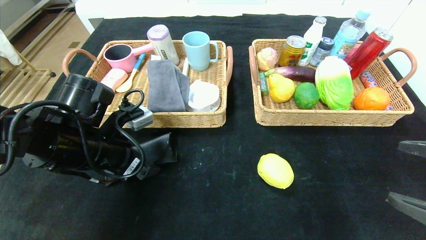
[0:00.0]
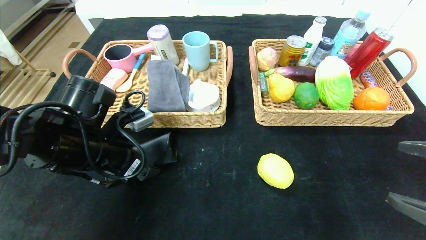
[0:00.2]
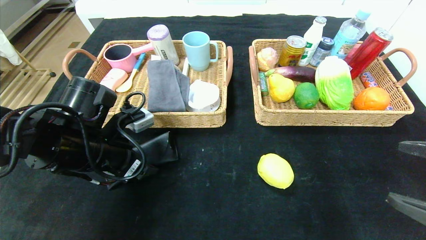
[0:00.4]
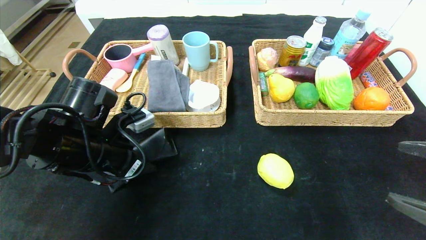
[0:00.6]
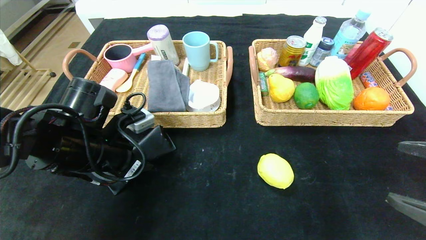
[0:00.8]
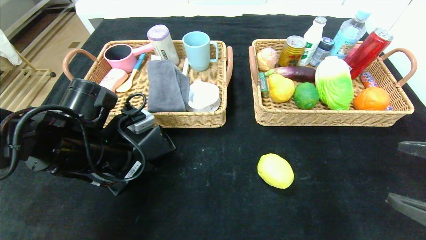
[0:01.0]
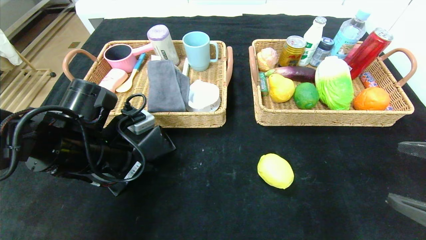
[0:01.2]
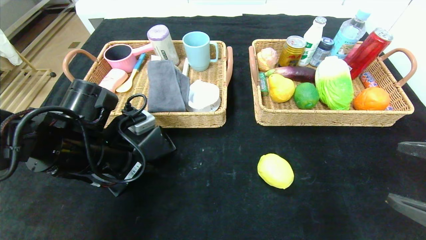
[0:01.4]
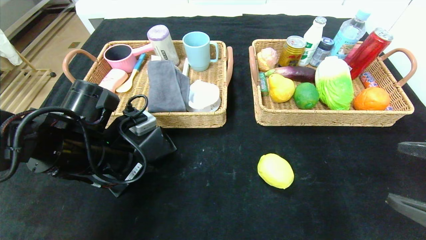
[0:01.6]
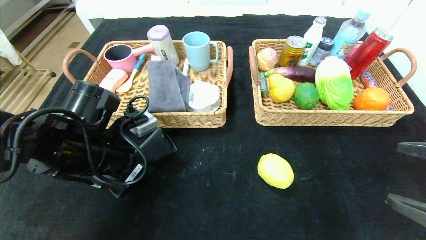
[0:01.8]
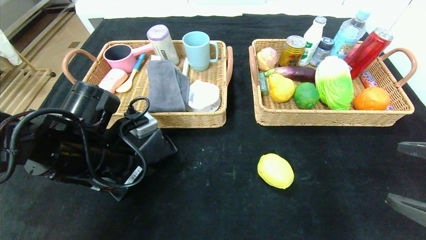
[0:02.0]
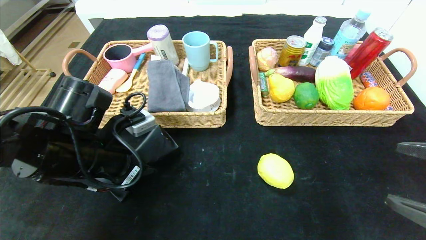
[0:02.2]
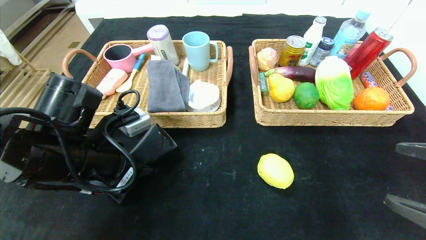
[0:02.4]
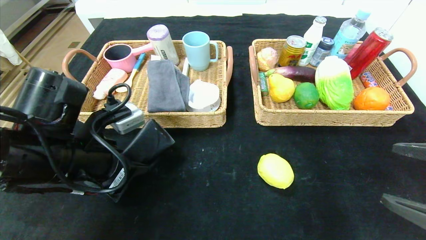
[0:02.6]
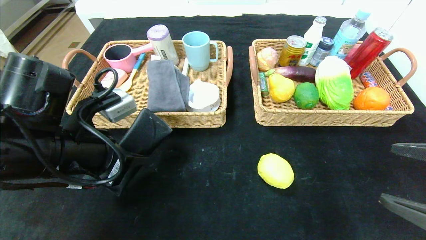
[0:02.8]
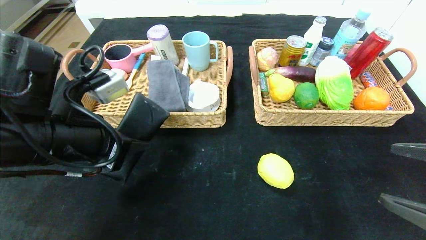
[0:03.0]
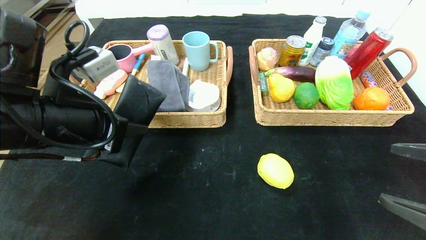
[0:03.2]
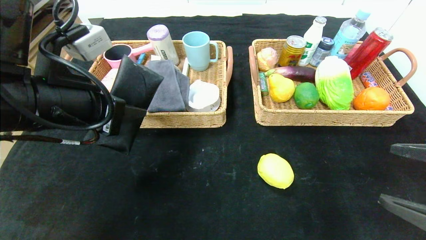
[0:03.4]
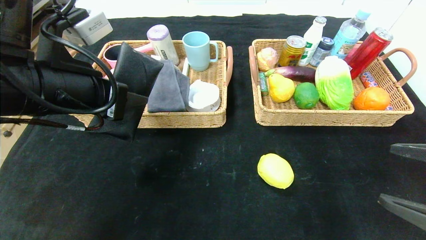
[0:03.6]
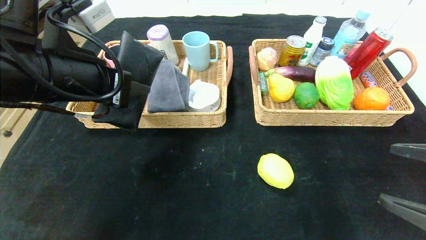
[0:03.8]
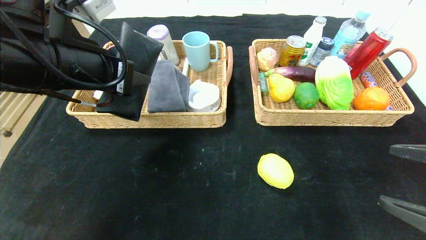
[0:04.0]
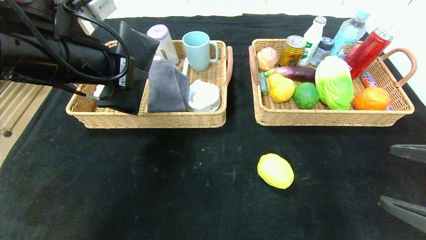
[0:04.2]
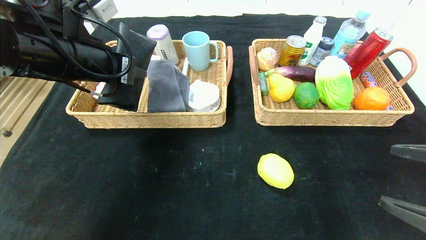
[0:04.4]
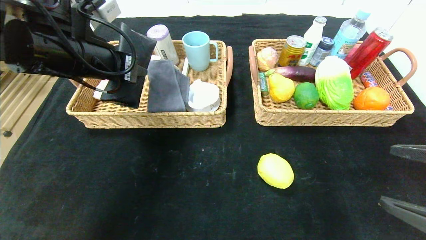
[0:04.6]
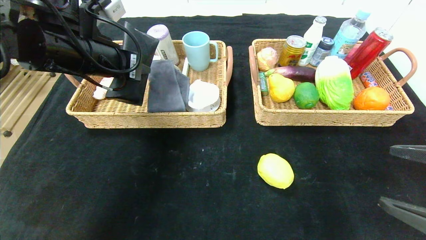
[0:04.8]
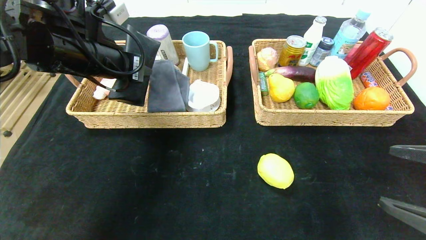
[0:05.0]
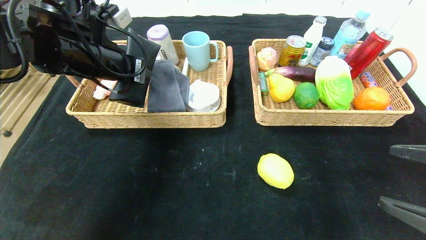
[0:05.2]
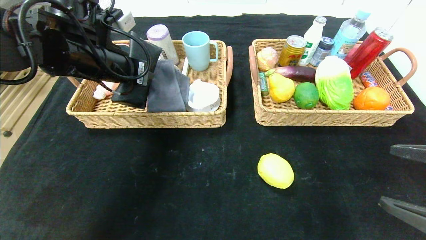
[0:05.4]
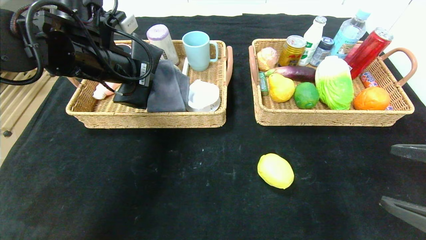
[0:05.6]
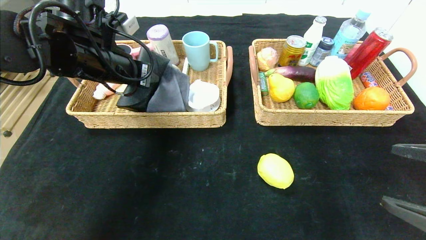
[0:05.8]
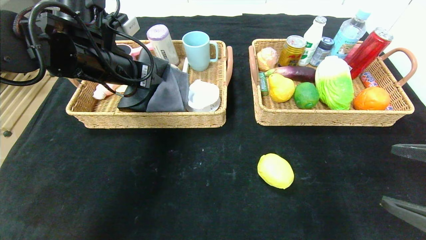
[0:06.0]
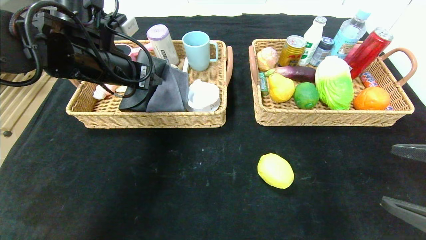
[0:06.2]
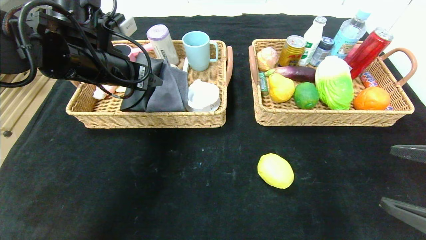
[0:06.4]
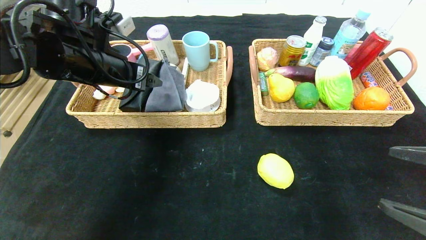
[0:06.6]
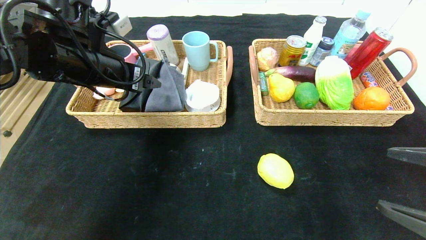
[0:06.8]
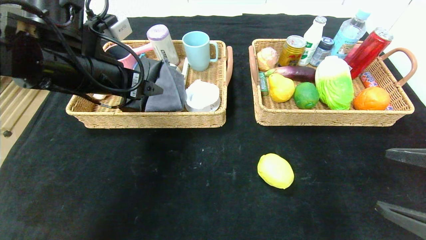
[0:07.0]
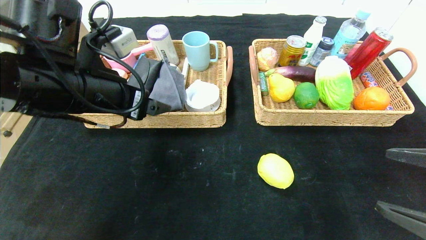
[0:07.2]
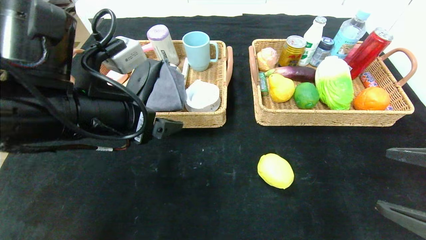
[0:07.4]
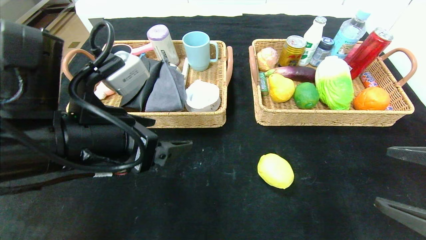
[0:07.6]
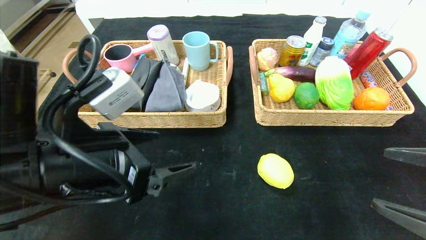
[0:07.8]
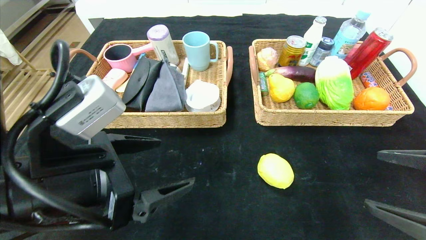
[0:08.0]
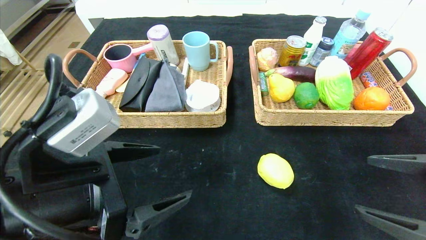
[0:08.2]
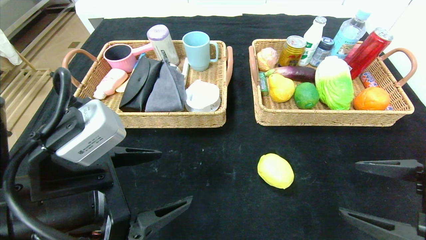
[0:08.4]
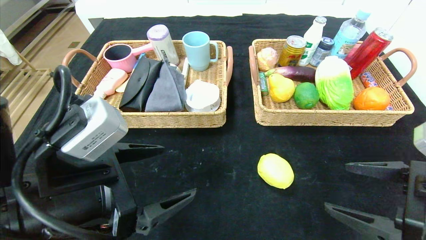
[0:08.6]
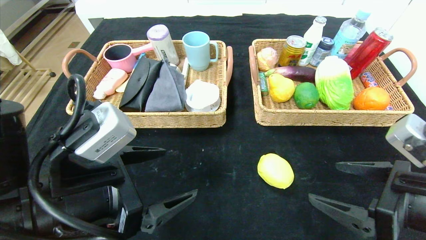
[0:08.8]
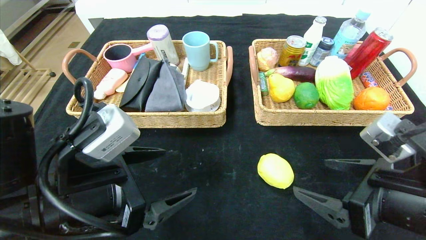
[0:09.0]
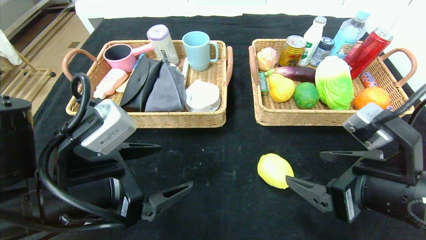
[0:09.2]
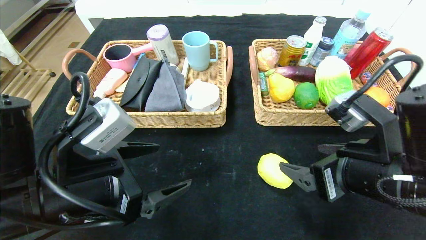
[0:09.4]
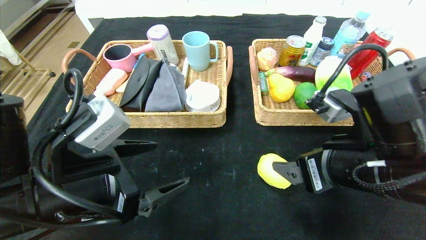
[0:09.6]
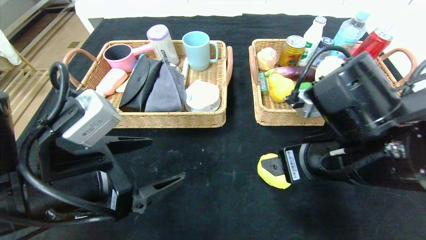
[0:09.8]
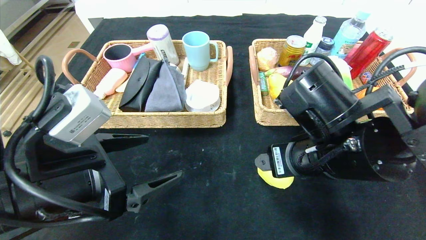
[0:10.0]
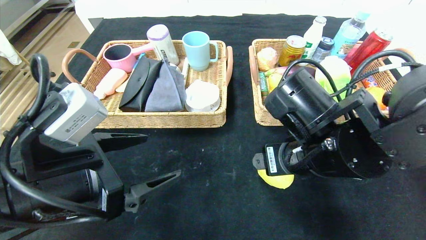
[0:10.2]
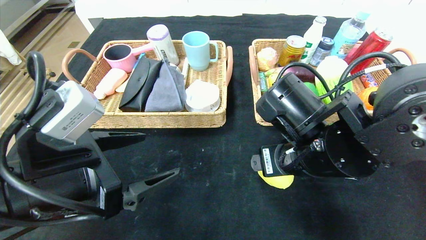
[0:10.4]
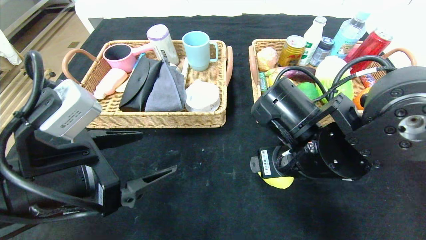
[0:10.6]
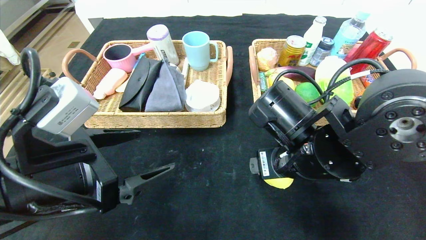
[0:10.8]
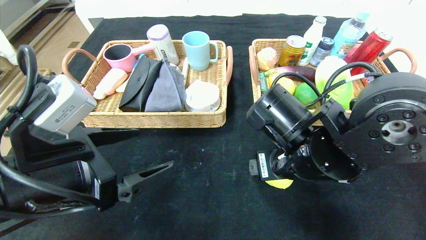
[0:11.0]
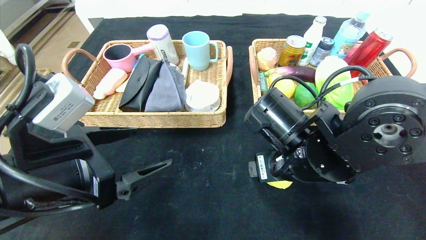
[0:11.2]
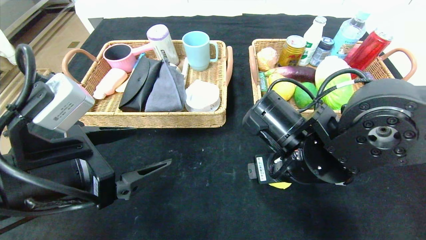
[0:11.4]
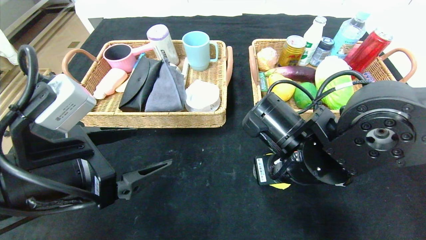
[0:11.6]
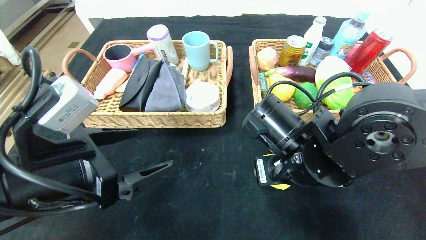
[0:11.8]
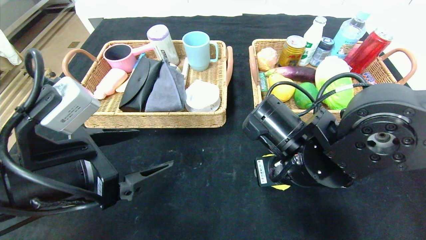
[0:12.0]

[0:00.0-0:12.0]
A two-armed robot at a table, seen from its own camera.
Step, 0:00.0 to 0:07.8: Pick up the glasses case and put it in the left basket.
0:00.0 to 0:01.6: The left gripper closes up.
0:01.6 to 0:03.0: The left gripper heads upward, covering about 5 cm.
0:03.0 to 0:04.4: The left gripper shifts roughly 10 cm forward and upward.
0:04.4 to 0:06.0: The left gripper heads forward, covering approximately 5 cm, and opens up.
0:06.0 to 0:07.6: The left gripper goes about 15 cm backward.
0:07.6 to 0:09.0: The left gripper changes place by roughly 5 cm, while the right gripper heads to the left, covering roughly 10 cm.
0:09.0 to 0:10.4: The right gripper is displaced to the left and forward by approximately 15 cm.

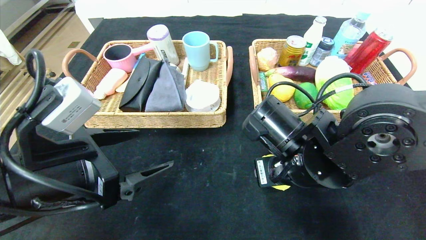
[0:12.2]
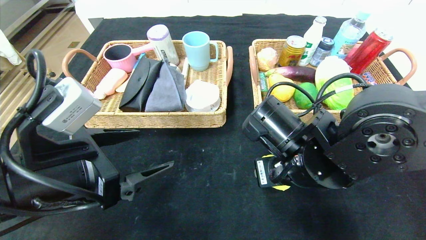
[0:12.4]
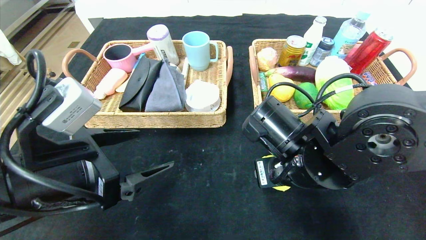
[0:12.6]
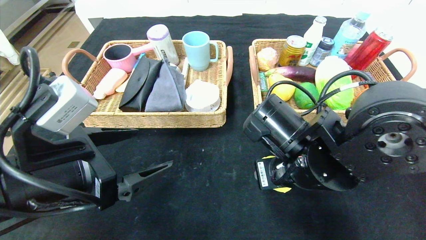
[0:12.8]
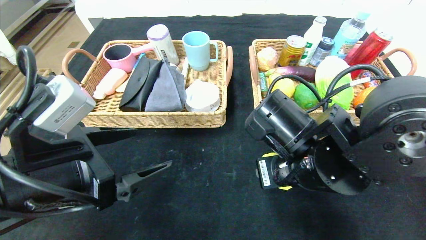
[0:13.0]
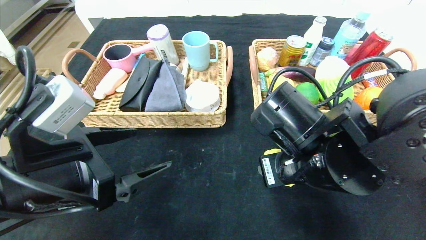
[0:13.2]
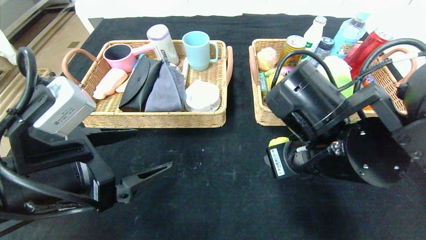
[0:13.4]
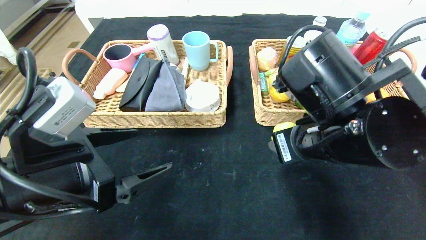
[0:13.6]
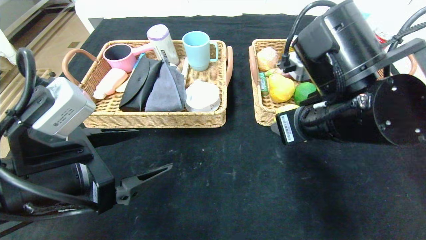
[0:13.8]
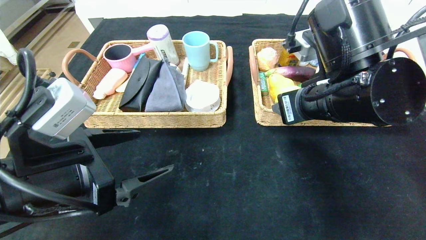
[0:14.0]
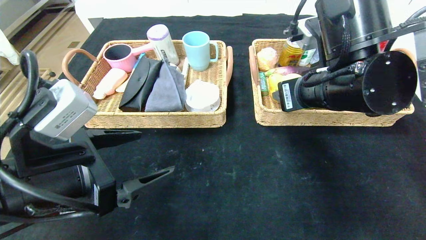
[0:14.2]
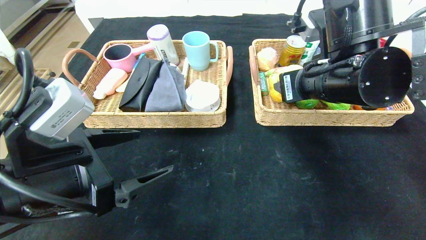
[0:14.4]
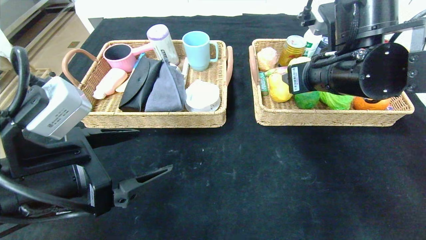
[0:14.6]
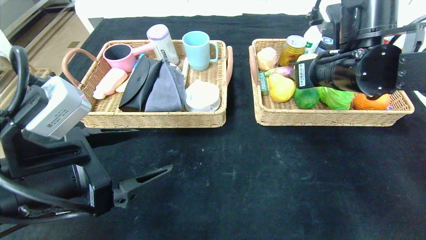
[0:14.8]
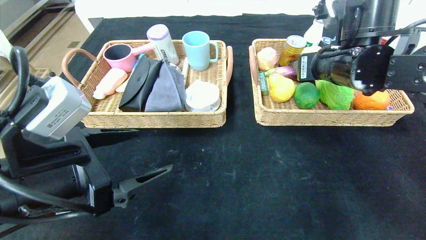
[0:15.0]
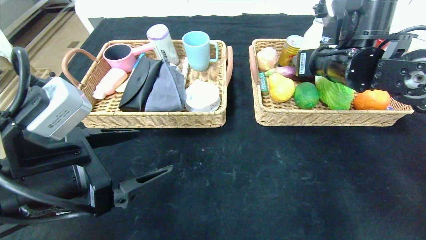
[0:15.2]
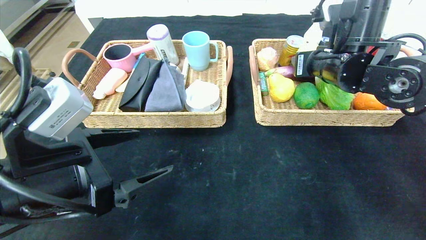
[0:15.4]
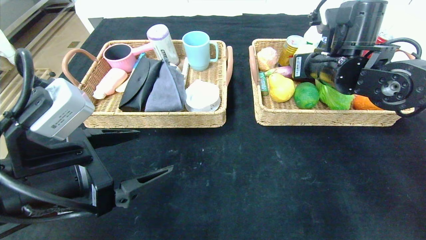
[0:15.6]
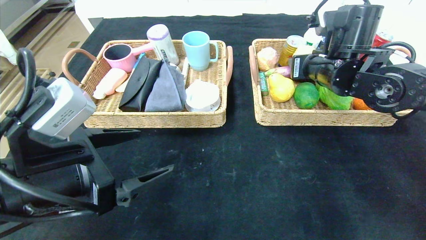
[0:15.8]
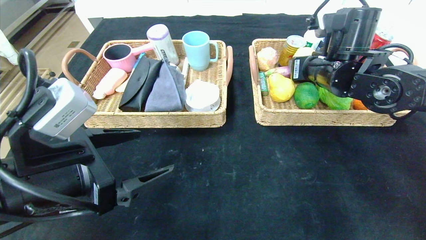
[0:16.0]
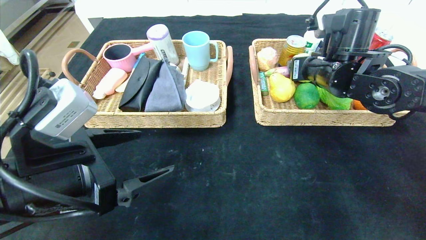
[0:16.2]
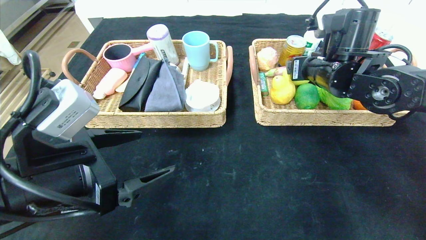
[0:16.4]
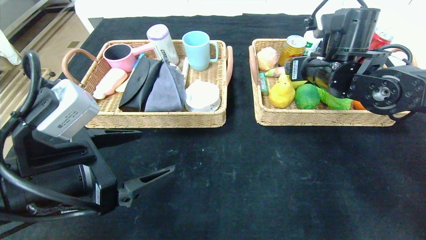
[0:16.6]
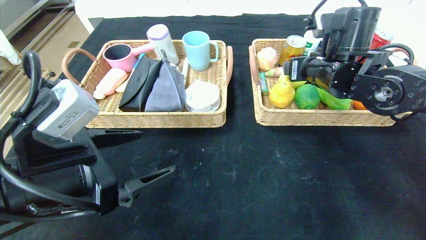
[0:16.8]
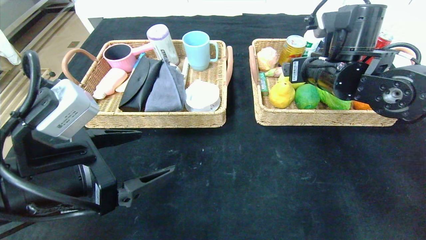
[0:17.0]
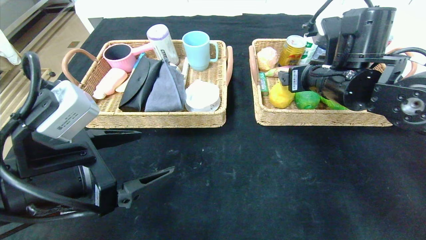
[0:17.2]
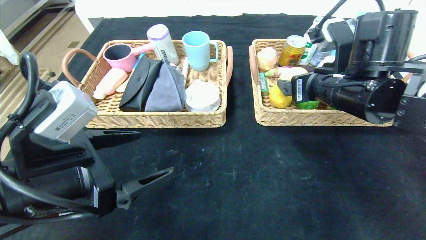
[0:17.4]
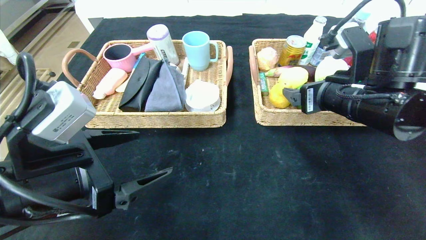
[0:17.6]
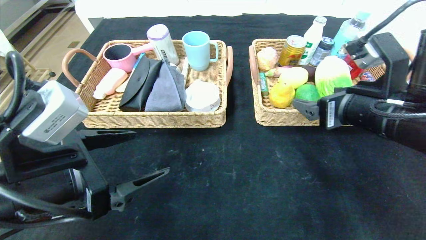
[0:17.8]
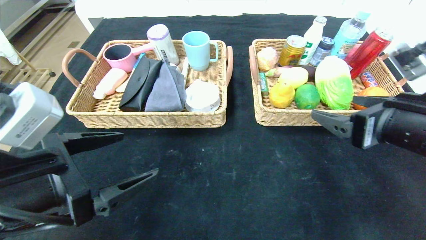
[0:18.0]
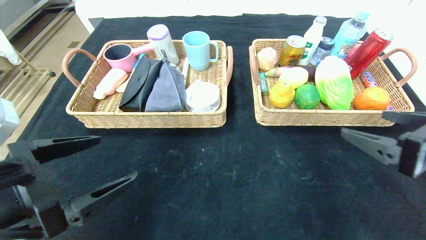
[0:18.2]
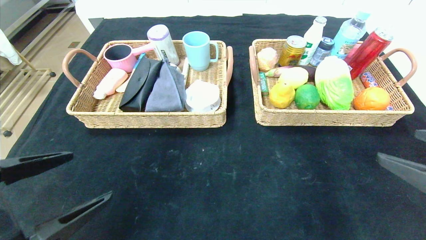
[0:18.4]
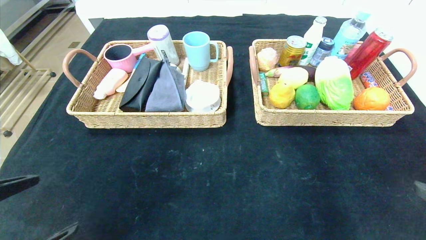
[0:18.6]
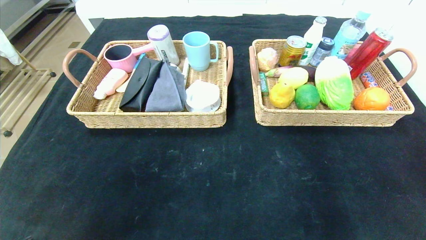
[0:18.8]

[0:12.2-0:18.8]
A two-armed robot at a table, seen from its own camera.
Step, 0:12.2 to 0:18.2: Pick up the lemon and put it in the right basket.
0:12.2 to 0:13.8: The right gripper shifts roughly 10 cm upward.
0:13.8 to 0:15.4: The right gripper goes about 15 cm forward and to the right.
0:15.4 to 0:17.2: The grippers make only small movements.
0:17.2 to 0:18.8: The left gripper travels backward and to the left by approximately 15 cm; the right gripper is displaced backward and to the right by approximately 35 cm.
